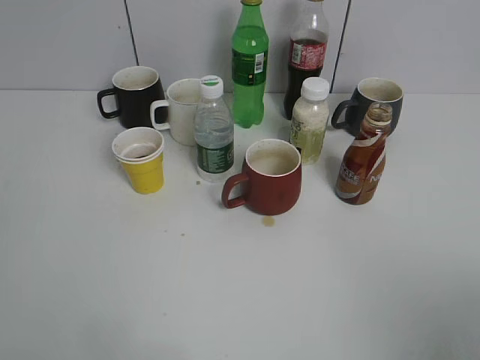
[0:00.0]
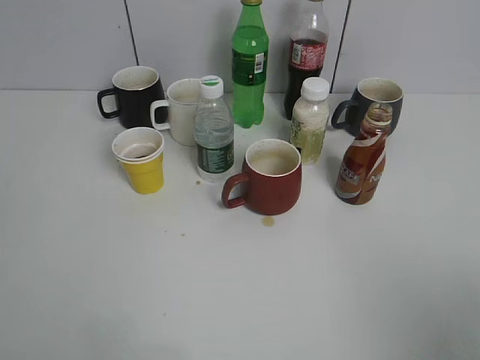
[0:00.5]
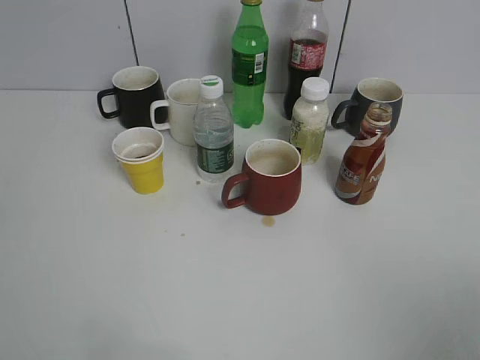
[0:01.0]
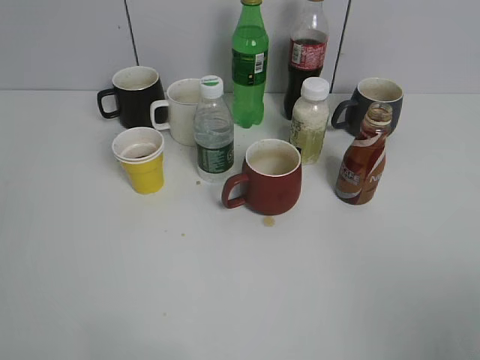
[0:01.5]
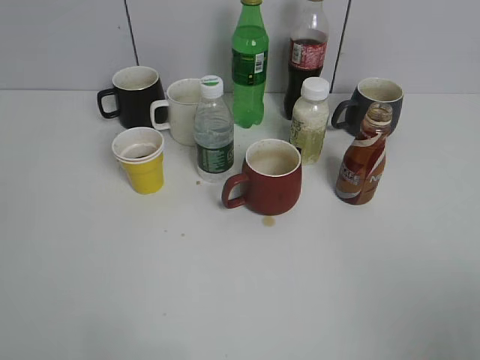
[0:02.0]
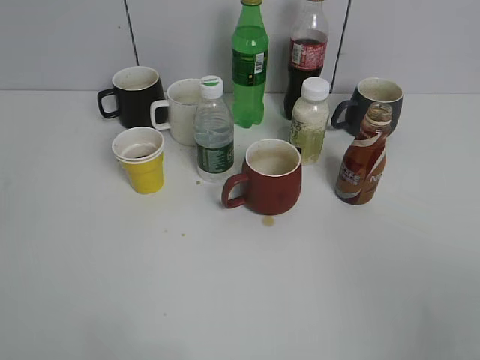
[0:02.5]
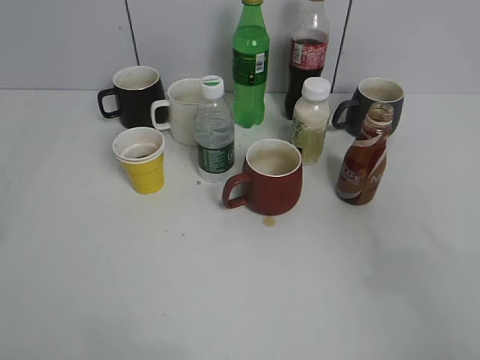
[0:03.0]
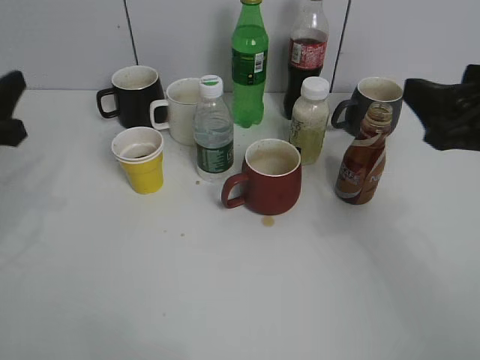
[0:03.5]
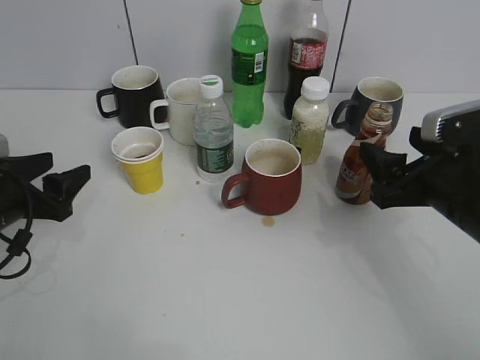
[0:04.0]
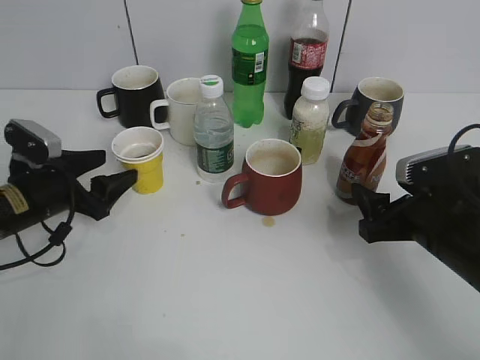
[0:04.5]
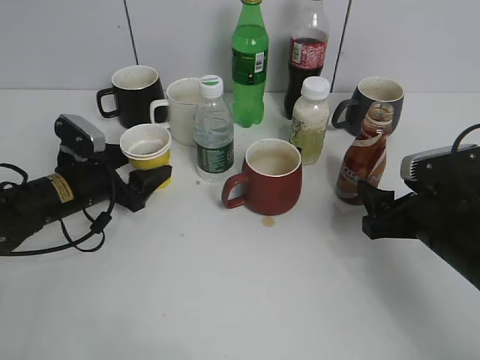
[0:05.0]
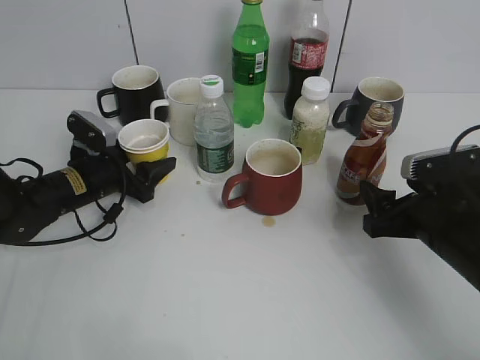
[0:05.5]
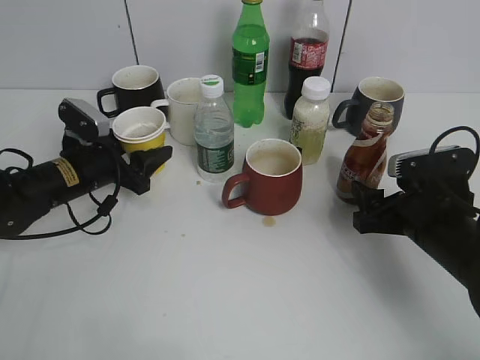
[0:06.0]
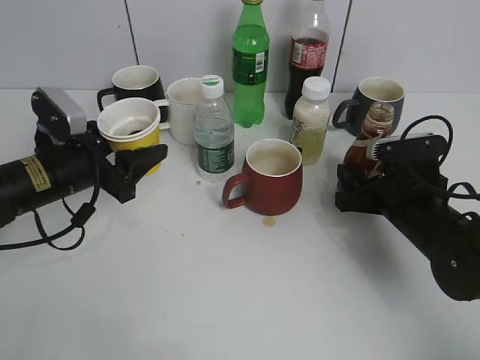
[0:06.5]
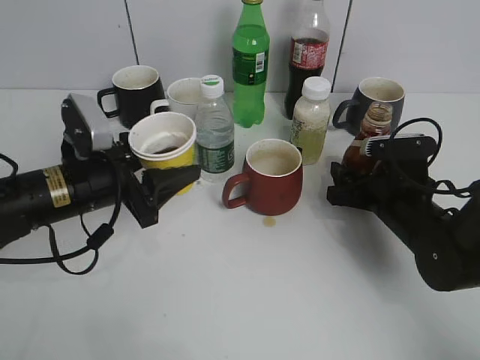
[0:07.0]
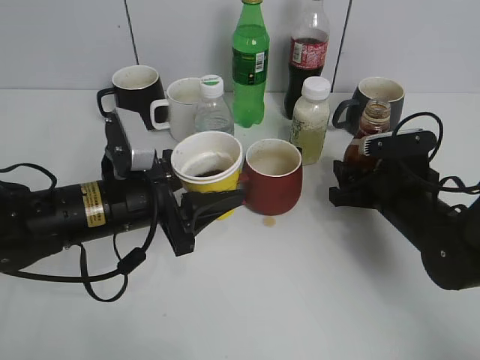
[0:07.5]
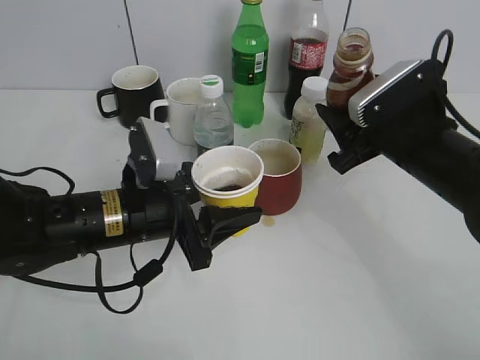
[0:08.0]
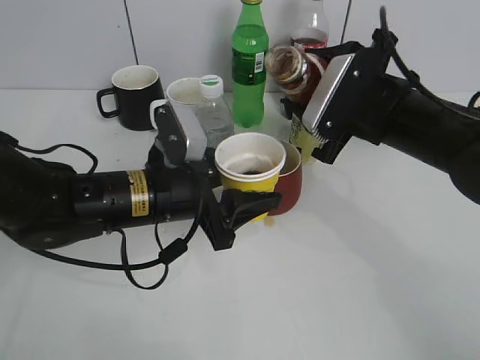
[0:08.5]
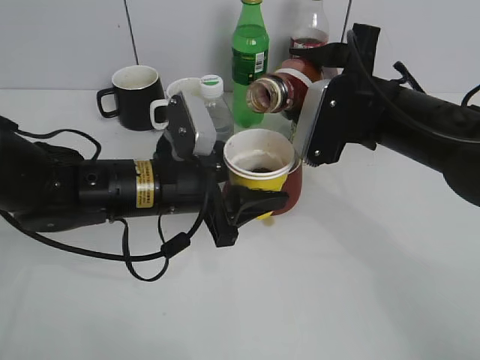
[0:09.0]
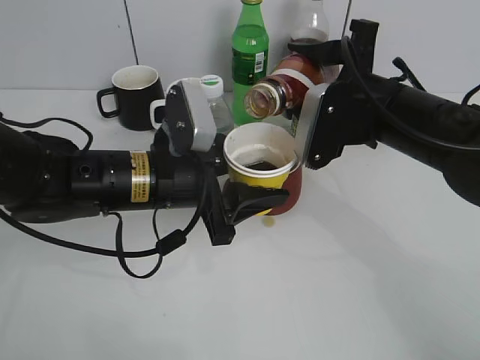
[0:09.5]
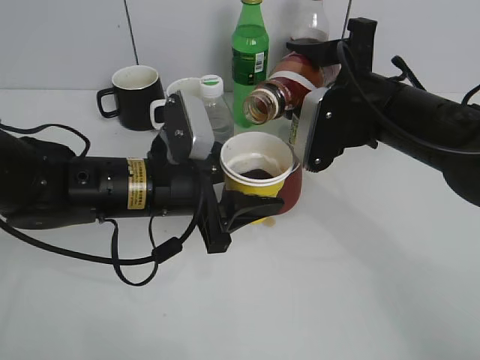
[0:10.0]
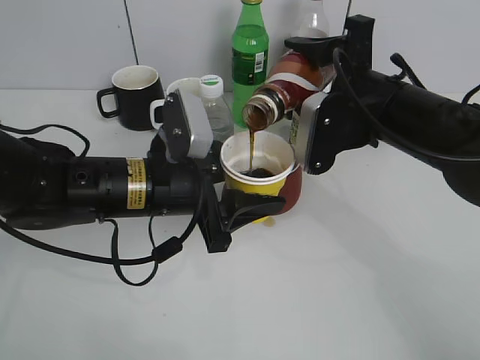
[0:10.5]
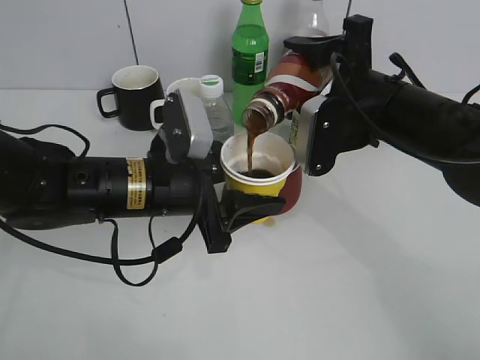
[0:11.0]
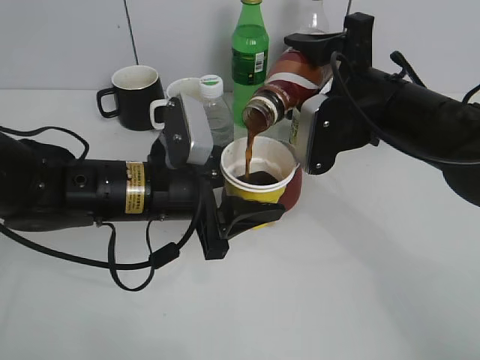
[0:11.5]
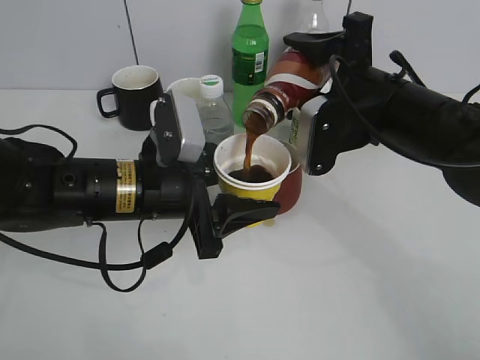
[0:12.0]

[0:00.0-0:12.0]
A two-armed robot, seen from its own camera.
Step, 0:01.0 to 0:05.5: Grasp the yellow paper cup with left gripper.
Step, 0:06.0 to 0:07.0: Grasp the bottle with coffee with right gripper.
0:02.0 to 0:04.0: Both grippers travel together forward and downward, roughly 30 cm. The left gripper opens up.
0:04.0 to 0:06.0: The right gripper heads downward, covering about 10 cm, while the left gripper goes approximately 10 cm forward and to the right.
0:06.0 to 0:08.0: The right gripper goes some 10 cm upward. The left gripper moves backward, to the right and upward, some 15 cm.
0:08.0 to 0:10.0: The right gripper moves approximately 5 cm.
0:10.0 to 0:12.0: There are only small adjustments of the grippers.

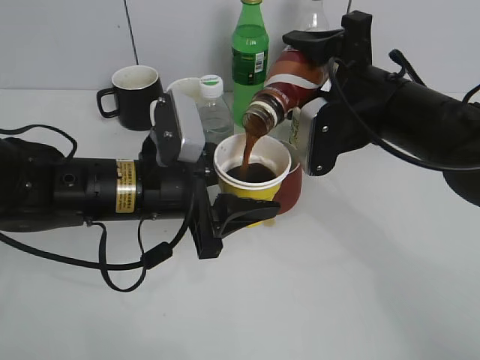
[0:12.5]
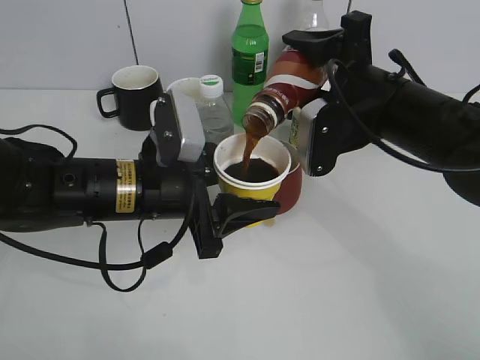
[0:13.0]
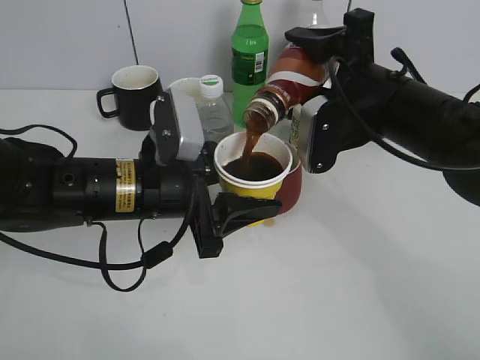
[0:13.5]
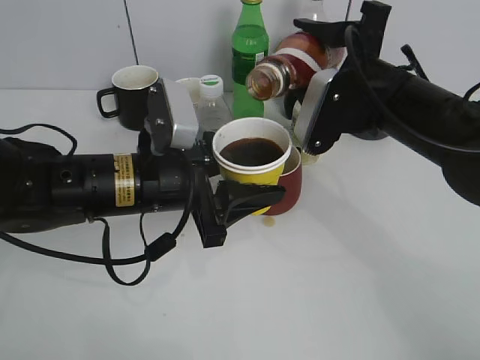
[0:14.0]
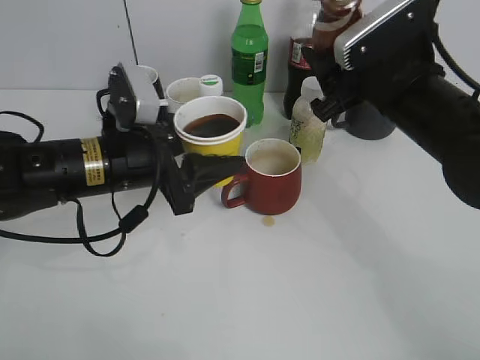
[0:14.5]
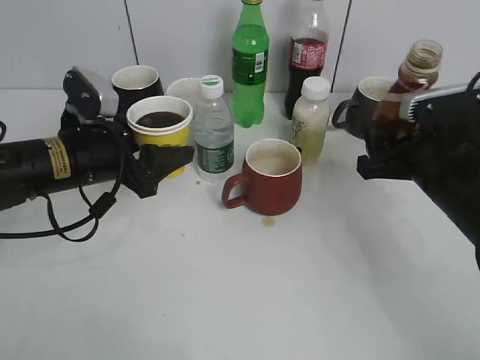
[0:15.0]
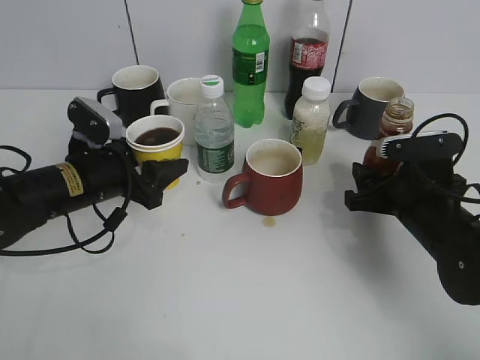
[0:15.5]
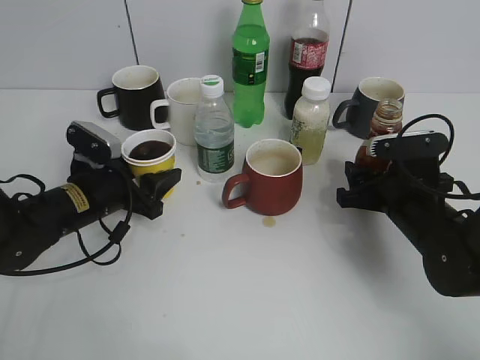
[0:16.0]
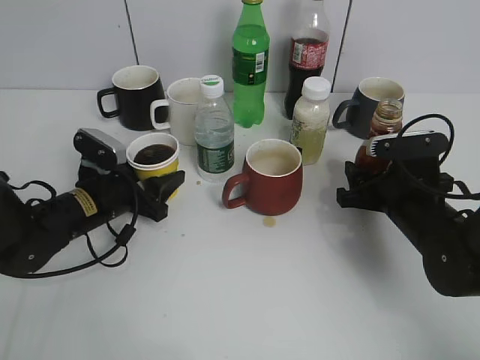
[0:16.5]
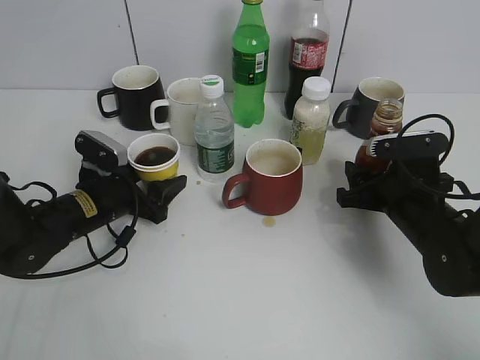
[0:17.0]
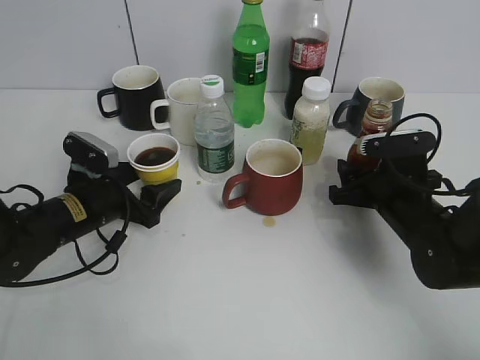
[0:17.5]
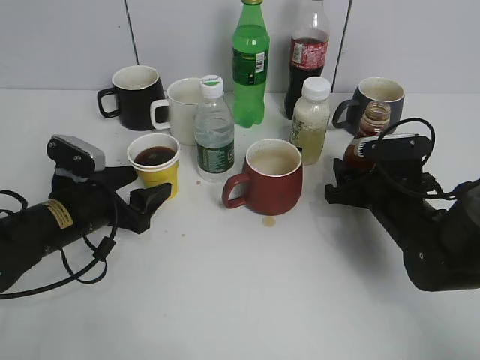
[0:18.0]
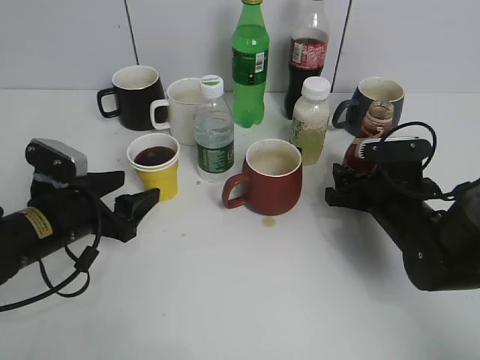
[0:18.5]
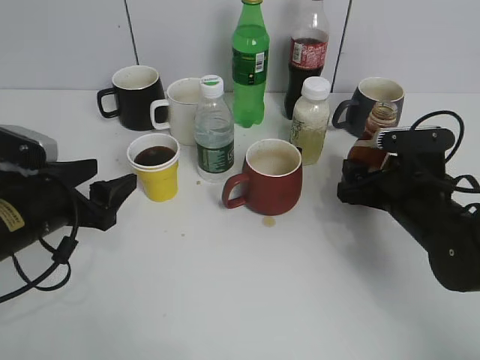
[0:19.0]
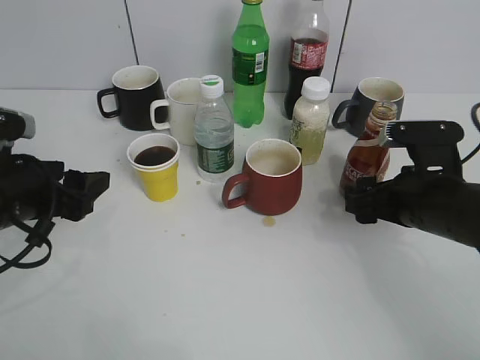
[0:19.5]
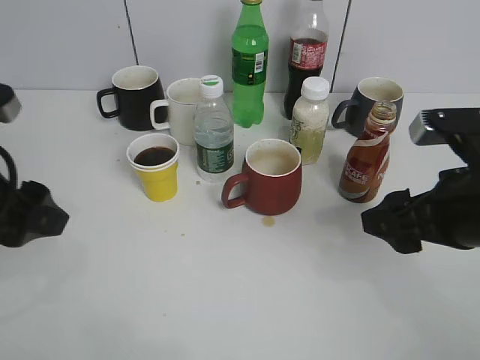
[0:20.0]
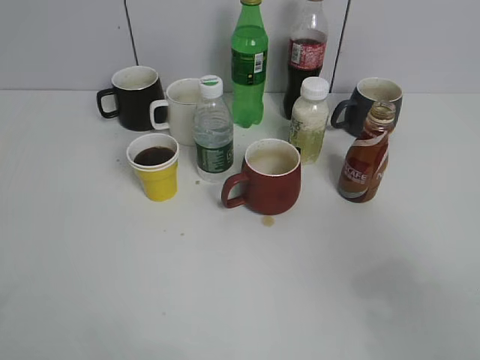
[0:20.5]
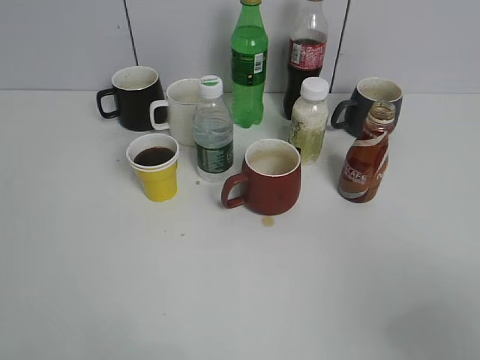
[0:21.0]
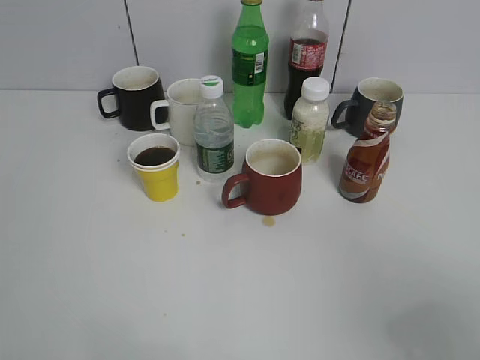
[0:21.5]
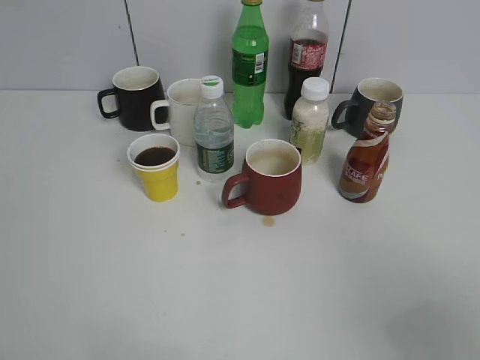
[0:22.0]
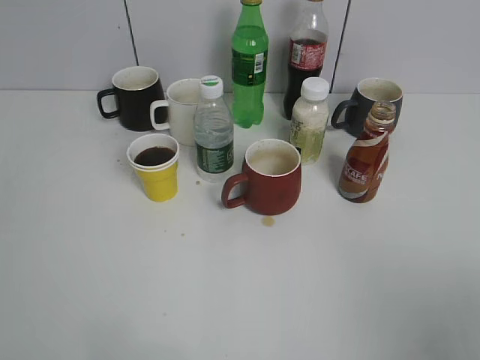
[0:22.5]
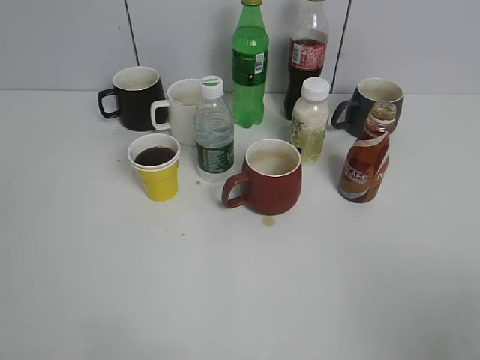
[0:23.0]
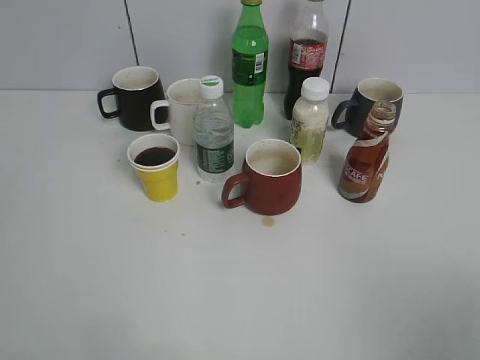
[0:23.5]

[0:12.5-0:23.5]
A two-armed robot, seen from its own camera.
Step, 0:12.5 to 0:14.5: Pour the coffee from bottle to cup with right gripper.
Step, 0:15.0 to 0:19.0: Place the coffee bottle on the table with right gripper.
0:14.5 to 0:16.0: The left gripper travels downward and to the left by roughly 10 cm. The right gripper heads downward, covering approximately 15 cm.
0:16.0 to 0:18.0: The left gripper opens up.
0:18.0 to 0:20.0: Both grippers travel together upward and backward, about 15 cm.
0:20.0 to 0:21.5: The left gripper is displaced backward and to the left by roughly 20 cm, while the right gripper shifts approximately 20 cm backward, upward and to the right.

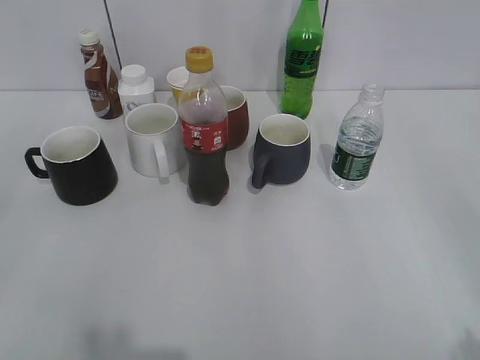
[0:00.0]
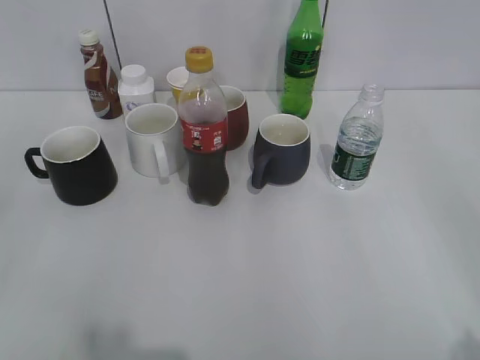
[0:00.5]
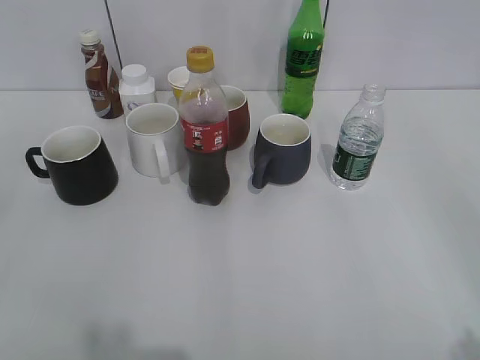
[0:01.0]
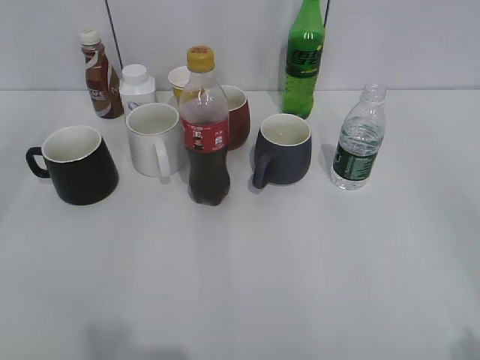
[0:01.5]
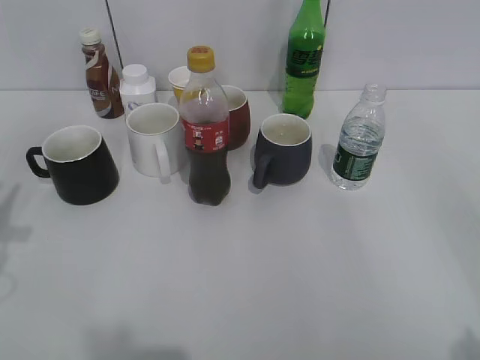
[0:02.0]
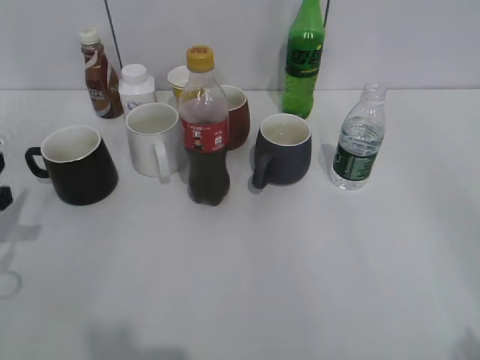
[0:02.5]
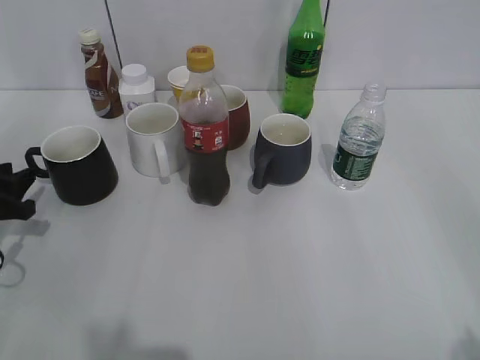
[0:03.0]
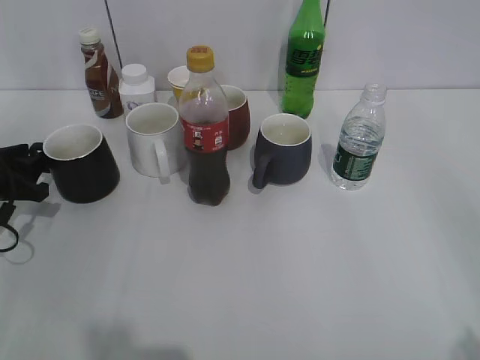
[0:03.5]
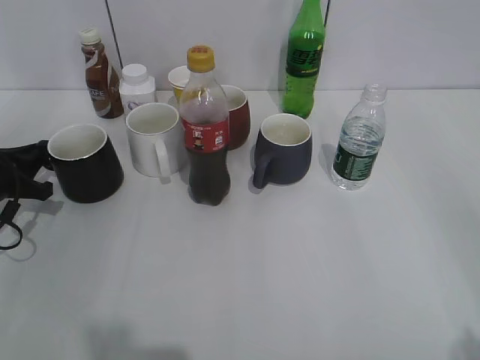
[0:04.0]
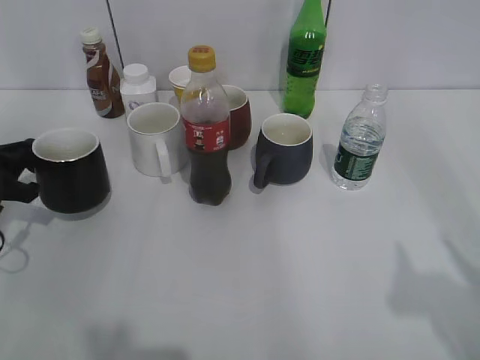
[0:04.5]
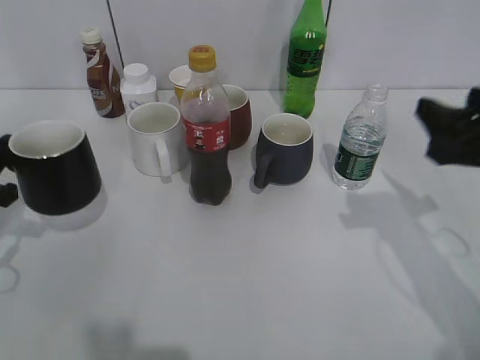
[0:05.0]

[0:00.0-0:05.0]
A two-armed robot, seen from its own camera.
Step, 0:00.0 to 0:03.5: Grasp the black cup with left gripper.
0:02.5 to 0:05.0: The right gripper is displaced forward by about 25 cm; the left gripper moves about 10 cm forward and comes back, and closes its fingers.
